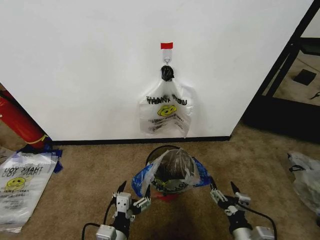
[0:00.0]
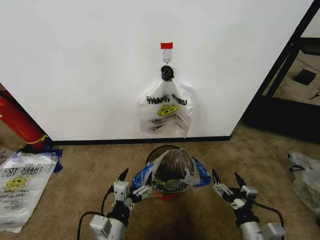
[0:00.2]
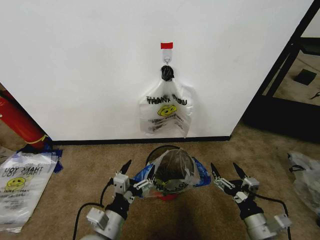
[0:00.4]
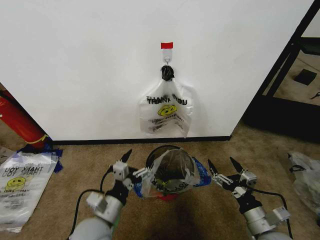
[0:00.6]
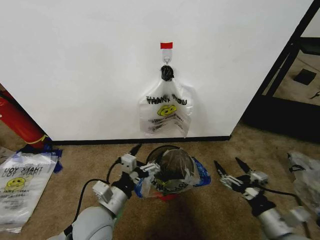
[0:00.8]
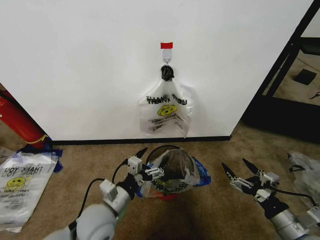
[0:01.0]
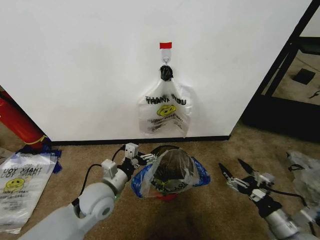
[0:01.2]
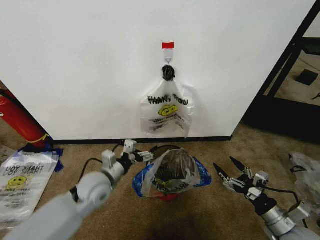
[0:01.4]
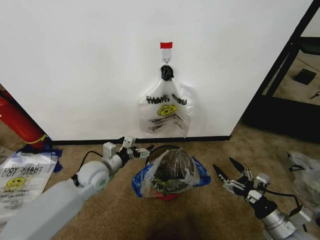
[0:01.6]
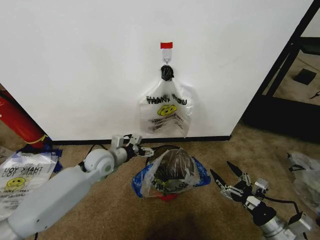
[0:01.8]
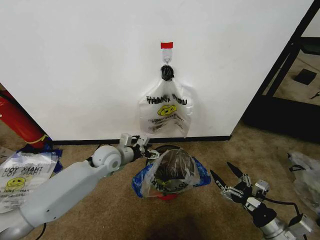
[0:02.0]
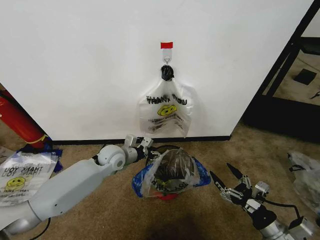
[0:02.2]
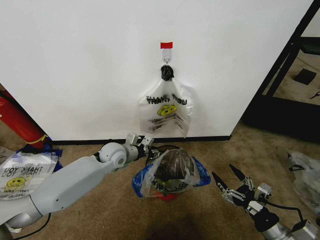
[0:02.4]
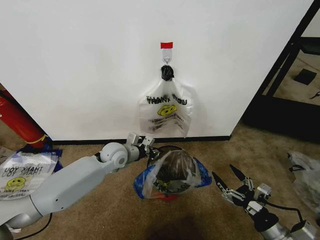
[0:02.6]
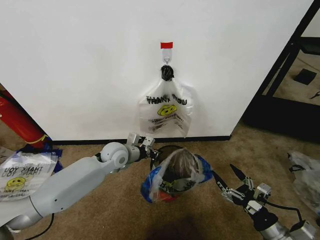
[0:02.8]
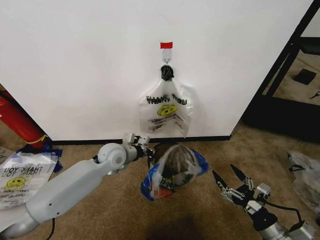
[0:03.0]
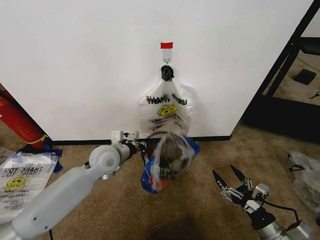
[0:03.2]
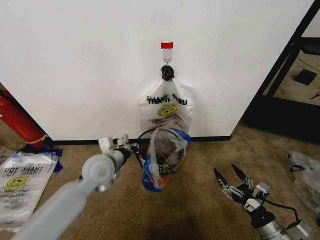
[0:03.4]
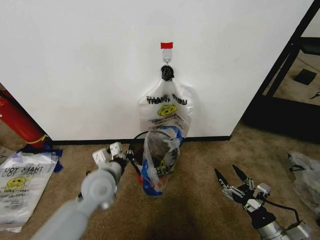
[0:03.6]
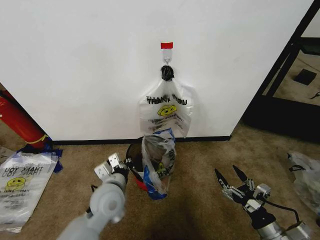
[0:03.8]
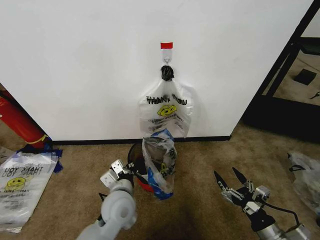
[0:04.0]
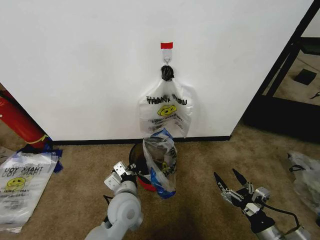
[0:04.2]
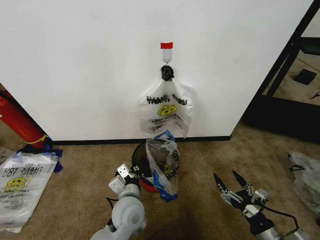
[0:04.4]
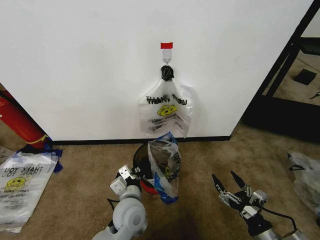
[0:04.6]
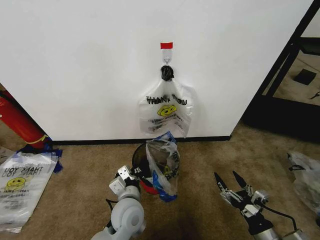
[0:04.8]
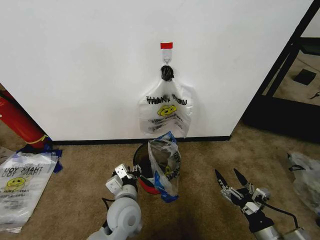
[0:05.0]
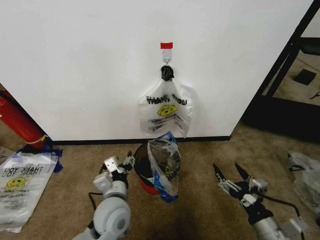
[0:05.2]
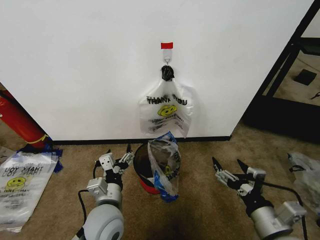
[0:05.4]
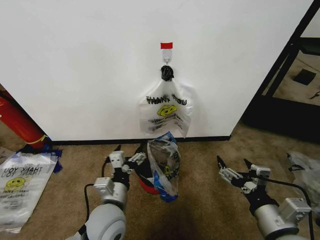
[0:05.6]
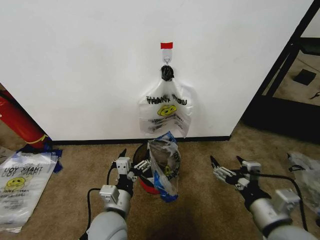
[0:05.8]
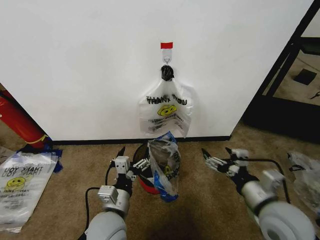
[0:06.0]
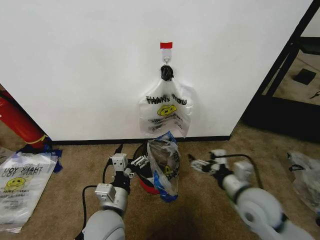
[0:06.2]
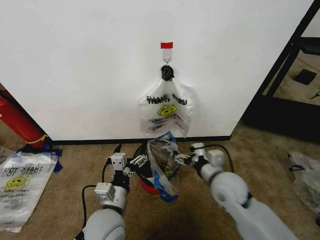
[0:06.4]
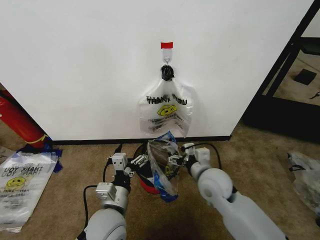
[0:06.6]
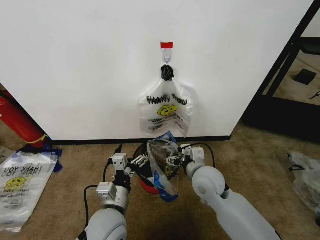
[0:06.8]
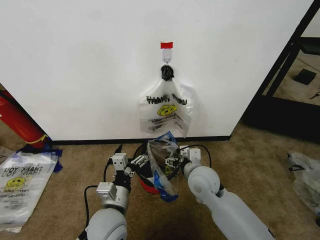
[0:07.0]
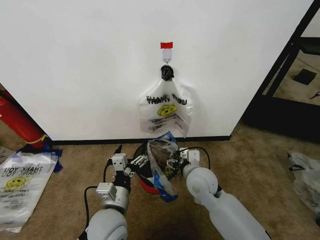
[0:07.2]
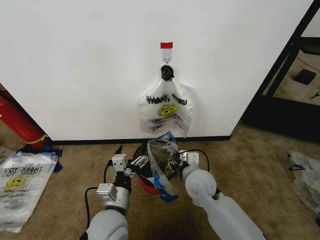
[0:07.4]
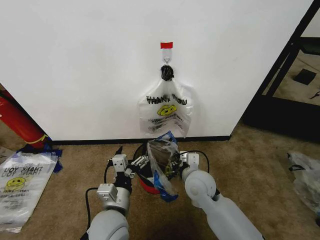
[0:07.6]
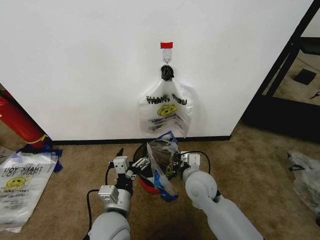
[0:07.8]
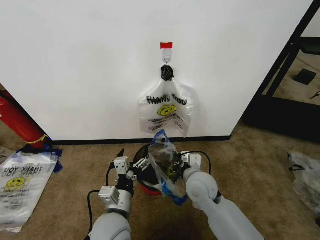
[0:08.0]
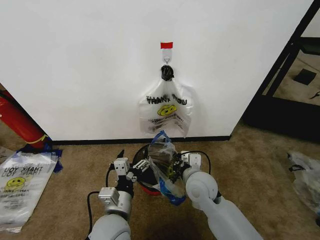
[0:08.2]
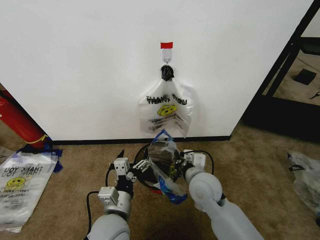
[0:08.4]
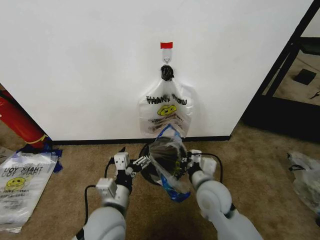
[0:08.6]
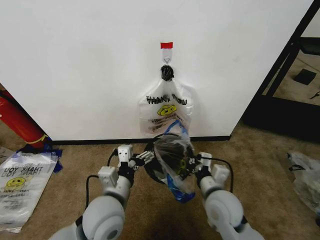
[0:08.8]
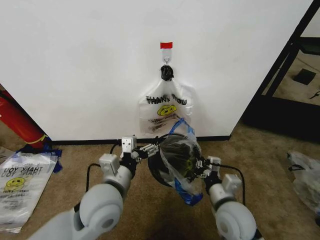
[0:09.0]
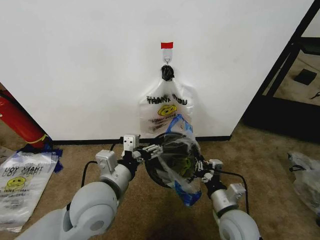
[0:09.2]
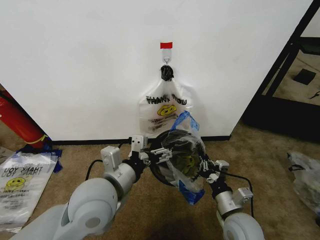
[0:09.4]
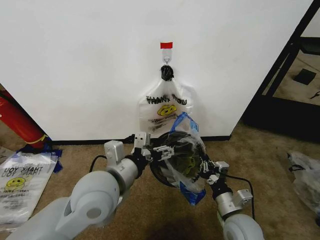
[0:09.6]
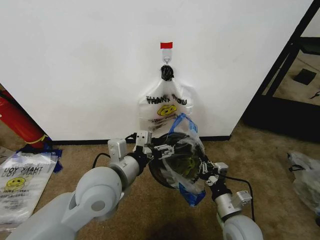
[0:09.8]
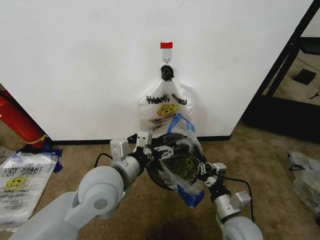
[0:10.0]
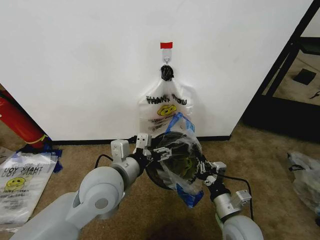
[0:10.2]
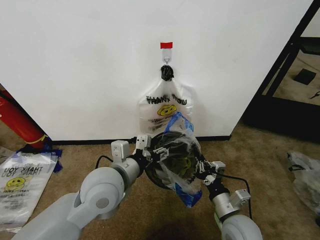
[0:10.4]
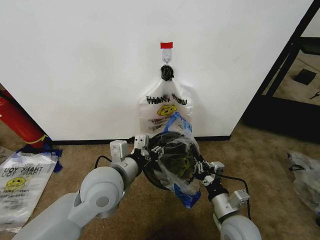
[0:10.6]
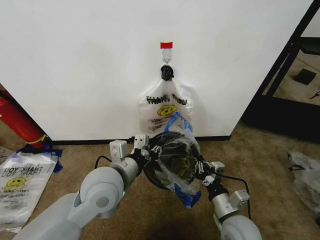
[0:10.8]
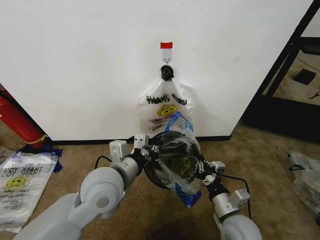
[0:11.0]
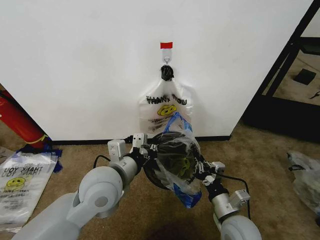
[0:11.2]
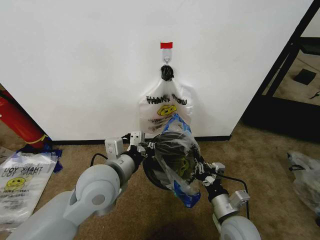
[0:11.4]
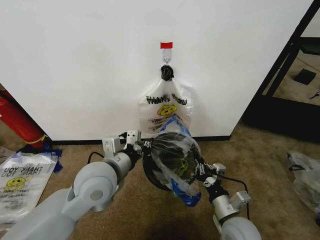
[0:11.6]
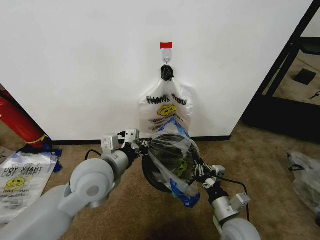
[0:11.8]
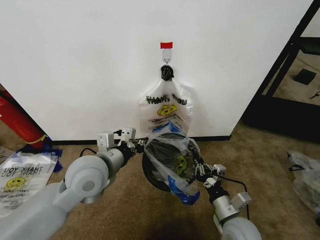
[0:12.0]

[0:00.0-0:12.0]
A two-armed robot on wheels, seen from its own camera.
Task of the whole recording: Pick up the garbage bag from the wall and place it over the trash bin.
0:00.0 to 0:01.6: The left gripper is displaced forward by roughly 25 cm. Meanwhile the right gripper goes some 10 cm to the right.
0:01.6 to 0:03.0: The left gripper goes about 5 cm forward and to the right, and closes.
0:03.0 to 0:04.4: The left gripper moves backward and to the right, approximately 20 cm.
0:04.4 to 0:06.0: The left gripper heads backward, covering roughly 5 cm, and opens. The right gripper heads upward, forward and to the left, covering about 15 cm.
0:06.0 to 0:07.6: The right gripper is displaced to the left, forward and downward by approximately 20 cm, and closes up.
0:07.6 to 0:09.0: The right gripper is displaced backward and to the right by approximately 15 cm, and closes its fingers. Meanwhile the left gripper moves upward, some 10 cm.
0:09.0 to 0:10.4: The grippers make only small movements.
0:10.4 to 0:12.0: The left gripper closes up.

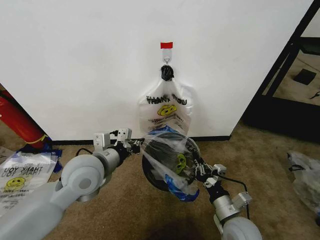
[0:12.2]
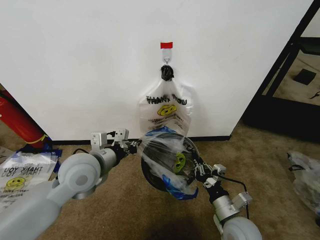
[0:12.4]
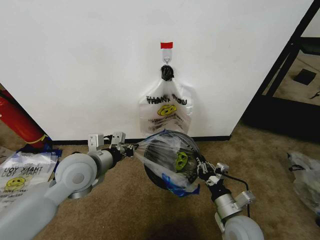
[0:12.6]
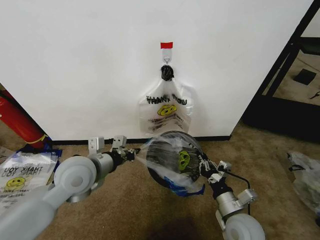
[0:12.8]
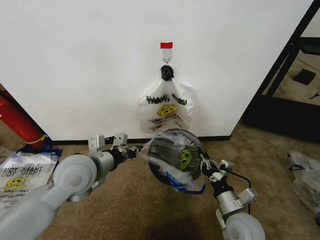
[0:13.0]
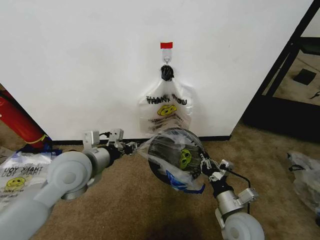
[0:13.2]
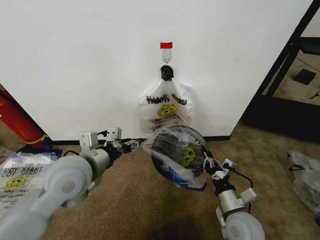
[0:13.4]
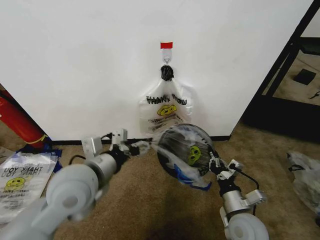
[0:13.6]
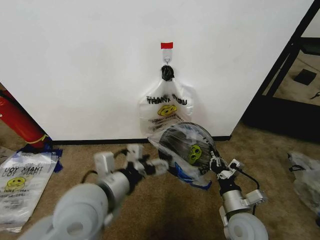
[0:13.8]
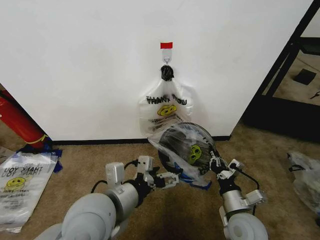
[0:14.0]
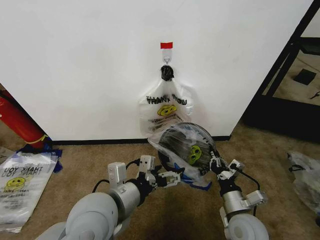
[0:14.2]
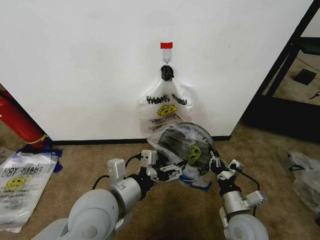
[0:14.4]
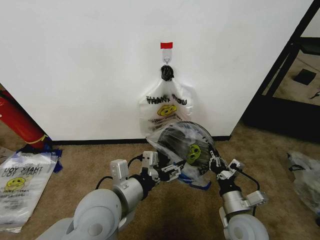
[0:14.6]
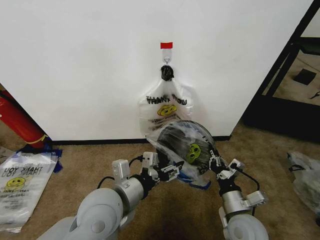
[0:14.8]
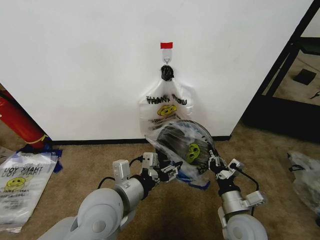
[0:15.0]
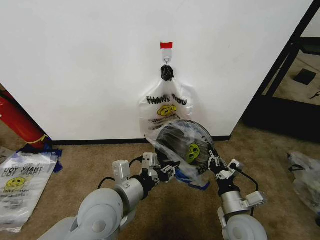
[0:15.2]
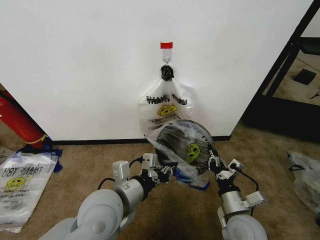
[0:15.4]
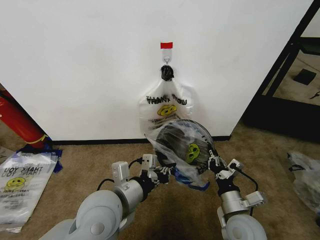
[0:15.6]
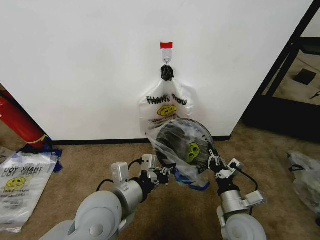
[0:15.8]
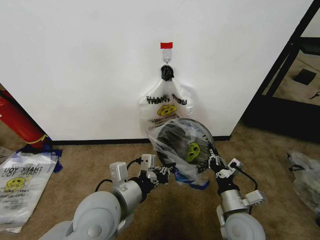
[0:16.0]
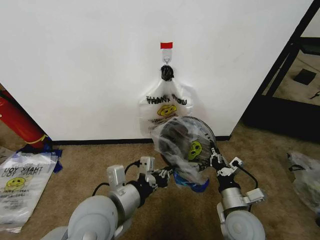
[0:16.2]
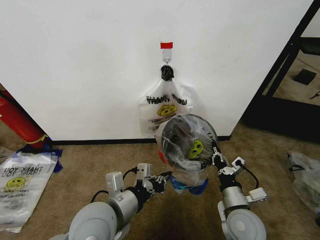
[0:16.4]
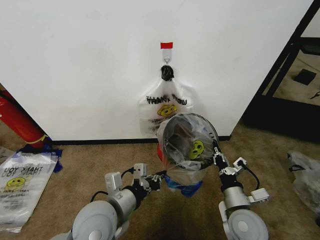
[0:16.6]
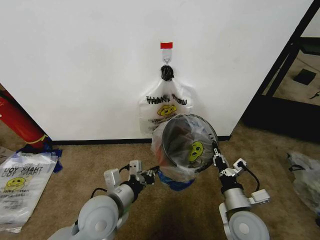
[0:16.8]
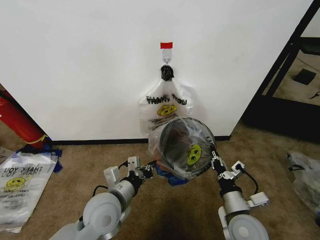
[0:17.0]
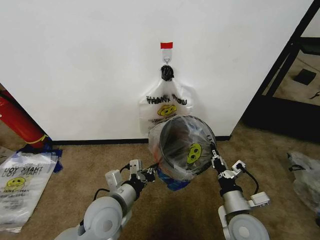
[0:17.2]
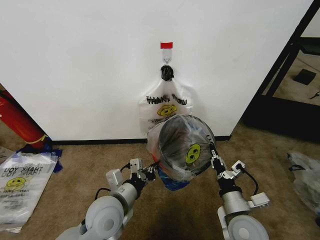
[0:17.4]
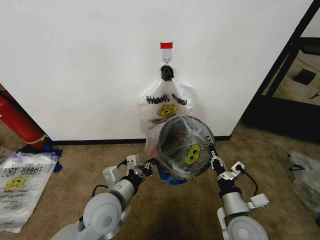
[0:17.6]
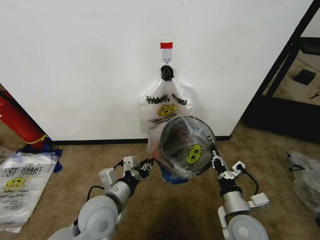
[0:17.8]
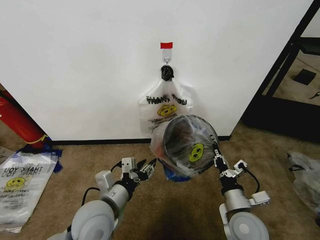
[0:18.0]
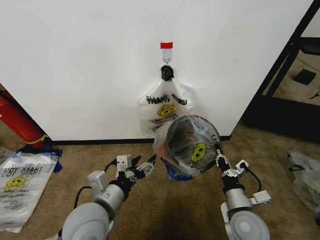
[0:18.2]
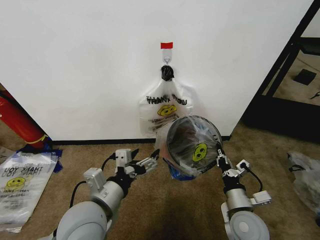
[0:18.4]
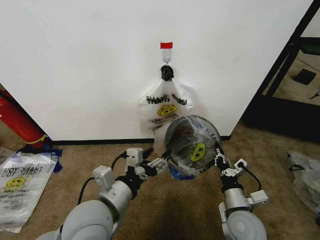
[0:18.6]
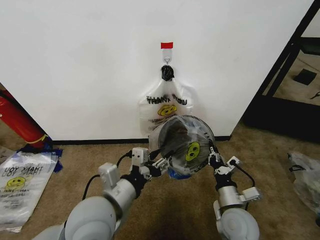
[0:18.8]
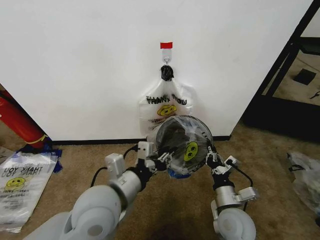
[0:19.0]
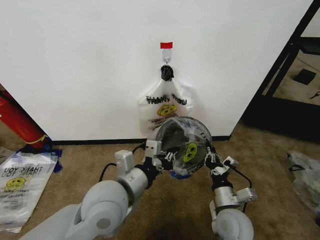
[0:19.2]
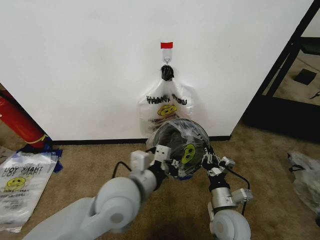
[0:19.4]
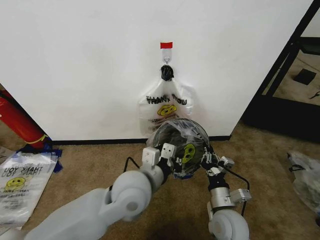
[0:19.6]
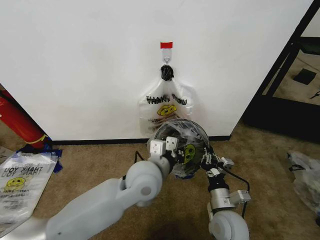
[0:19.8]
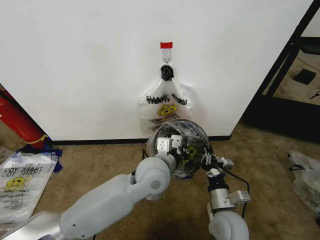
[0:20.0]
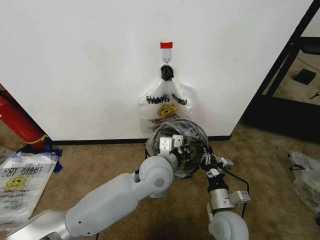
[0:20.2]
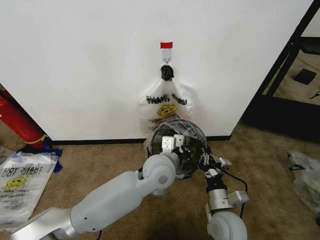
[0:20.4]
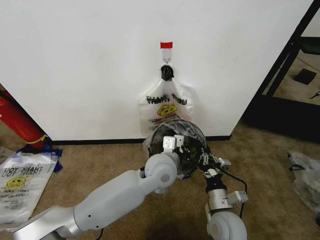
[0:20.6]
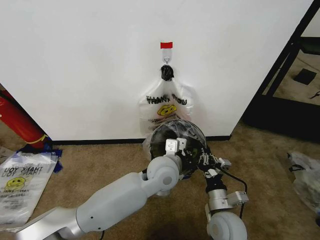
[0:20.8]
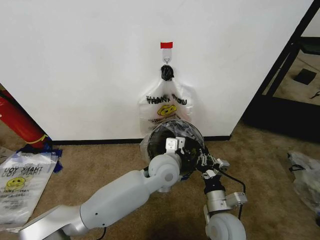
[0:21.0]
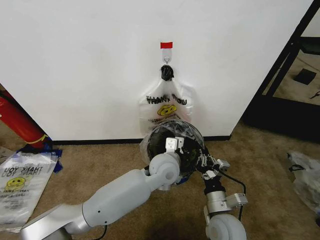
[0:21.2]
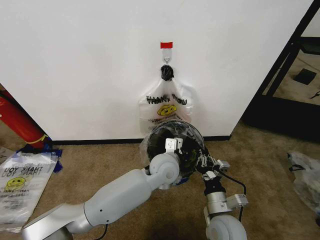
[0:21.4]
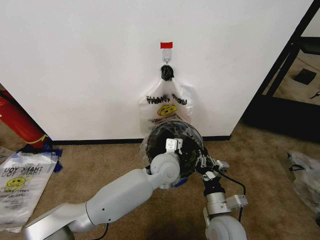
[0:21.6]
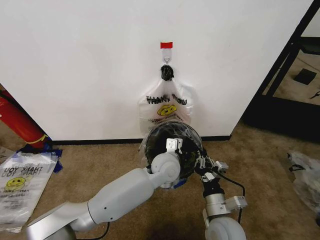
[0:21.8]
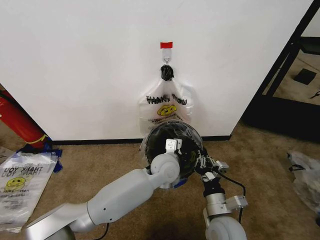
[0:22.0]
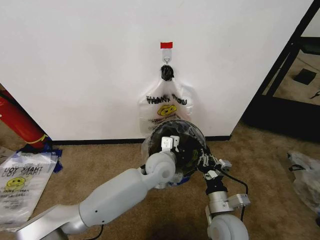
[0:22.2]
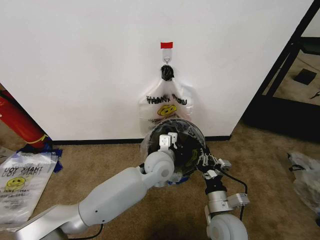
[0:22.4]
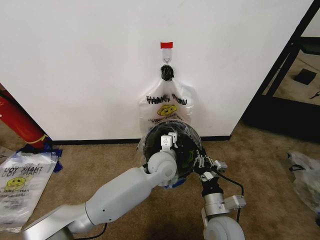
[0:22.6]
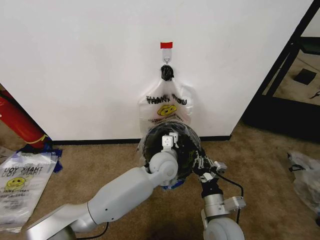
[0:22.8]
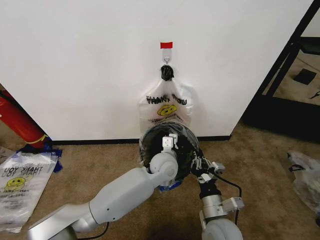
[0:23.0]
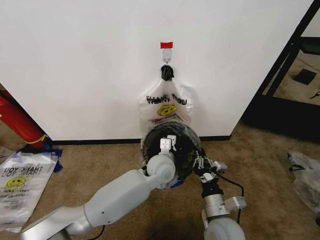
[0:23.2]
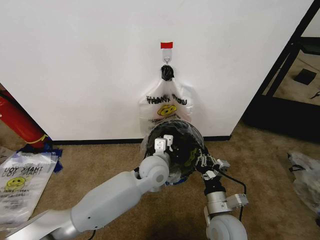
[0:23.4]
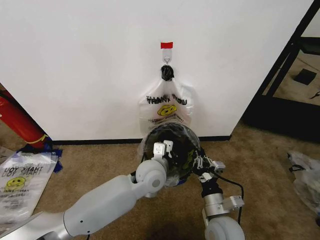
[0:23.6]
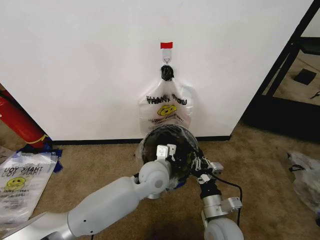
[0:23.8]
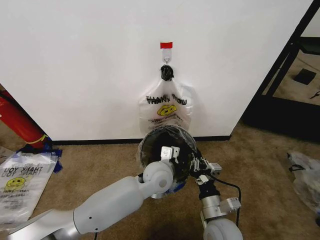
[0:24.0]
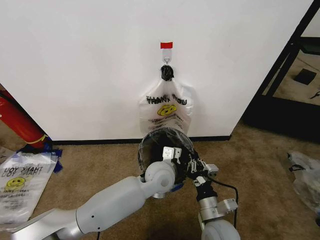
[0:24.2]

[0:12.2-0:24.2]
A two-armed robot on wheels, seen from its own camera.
Task of the whole recording: Pick up the garbage bag from the wall and place it over the trash bin.
0:12.2 to 0:13.8: The left gripper is displaced backward by approximately 10 cm, and opens its fingers.
0:13.8 to 0:15.2: The left gripper changes place by roughly 5 cm, and closes its fingers.
0:15.2 to 0:16.6: The grippers move only a little.
0:16.6 to 0:18.2: The left gripper opens its fingers.
0:18.2 to 0:19.8: The right gripper changes place by some 5 cm; the left gripper travels to the right and forward by approximately 15 cm, and closes.
0:19.8 to 0:21.2: The left gripper goes roughly 10 cm forward, downward and to the right.
0:21.2 to 0:24.2: The grippers stay close to where they were, moving slightly.
